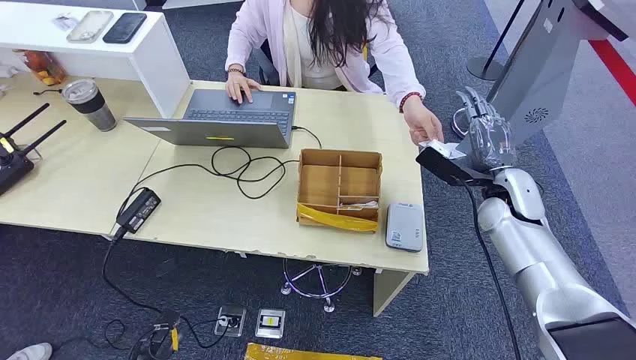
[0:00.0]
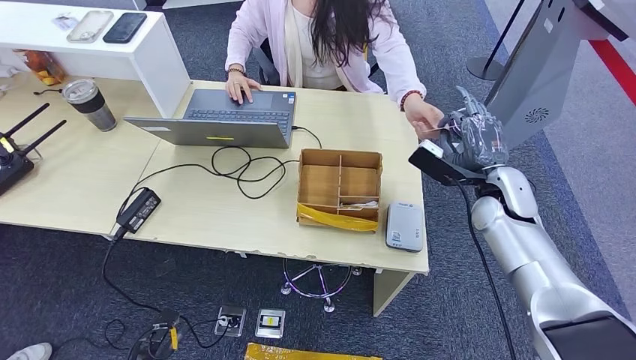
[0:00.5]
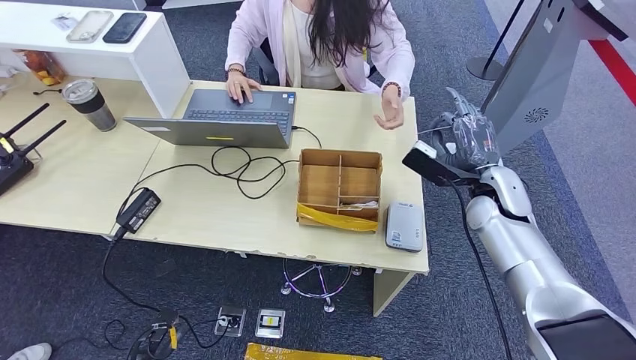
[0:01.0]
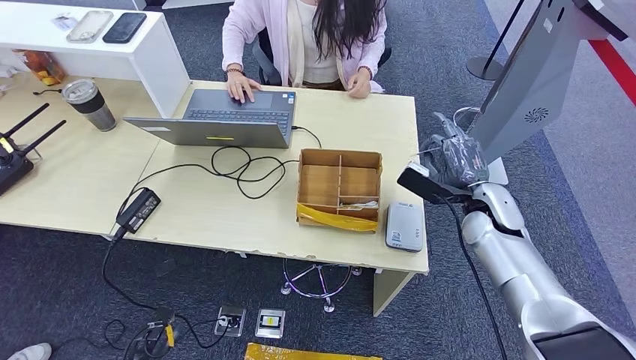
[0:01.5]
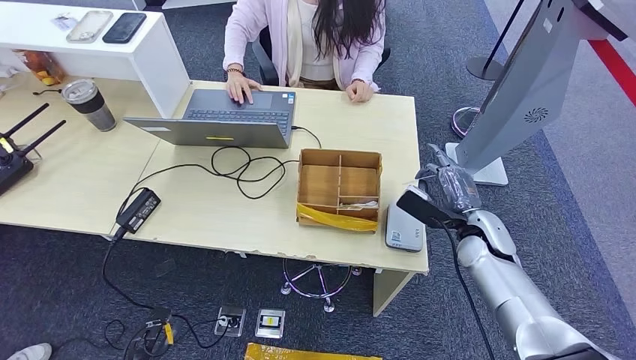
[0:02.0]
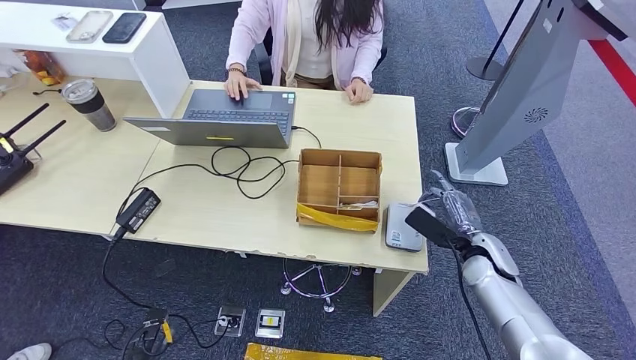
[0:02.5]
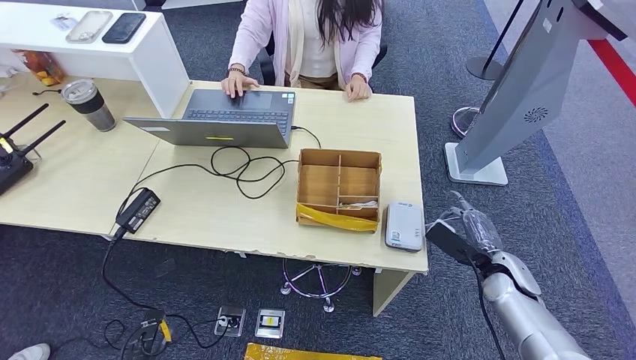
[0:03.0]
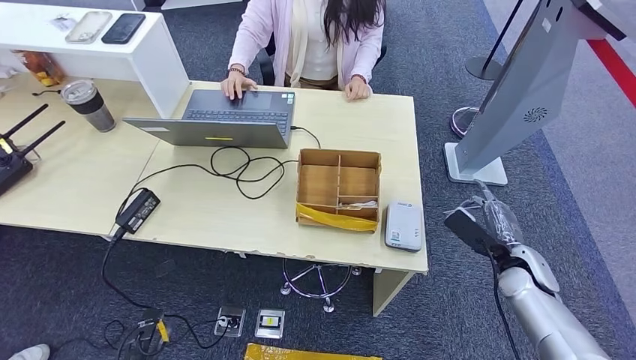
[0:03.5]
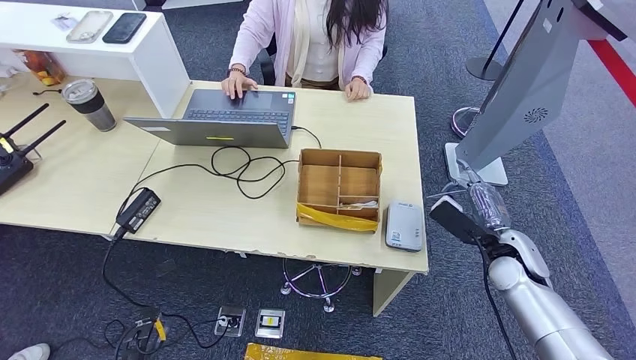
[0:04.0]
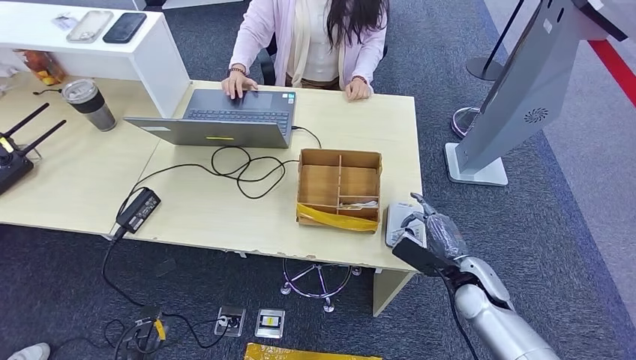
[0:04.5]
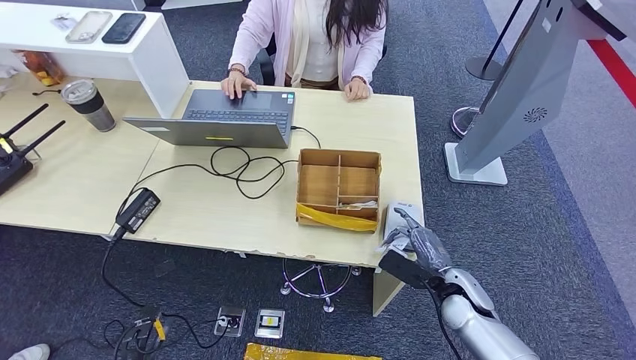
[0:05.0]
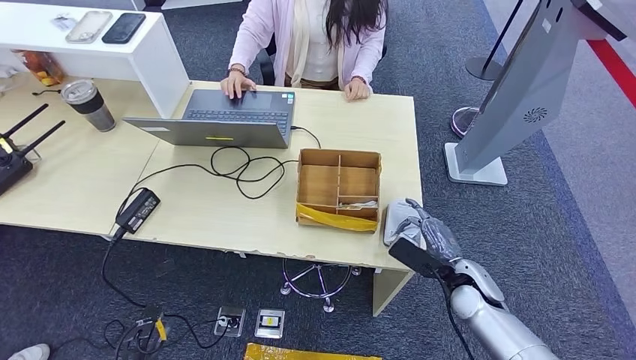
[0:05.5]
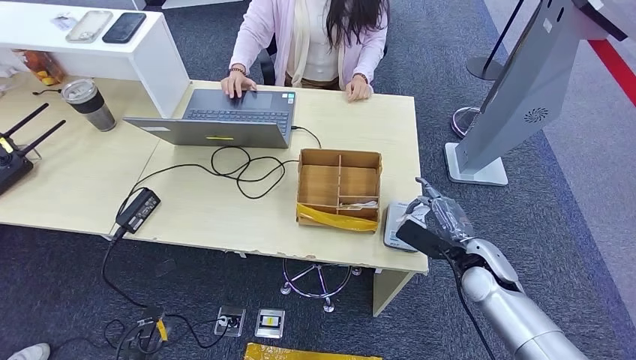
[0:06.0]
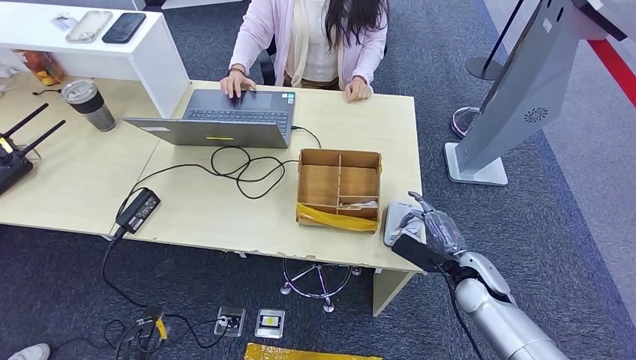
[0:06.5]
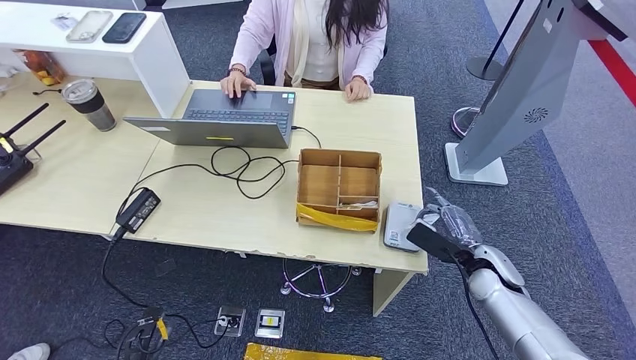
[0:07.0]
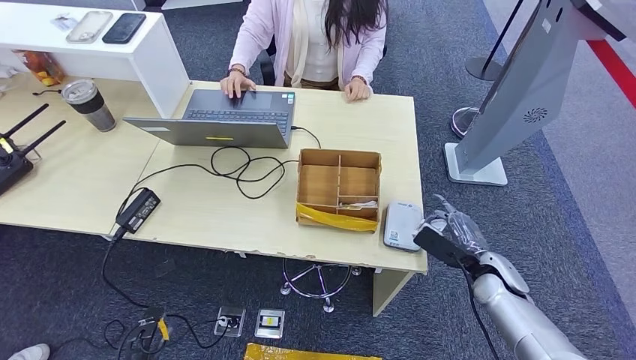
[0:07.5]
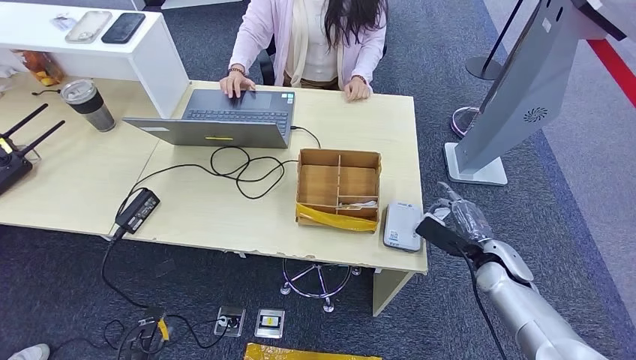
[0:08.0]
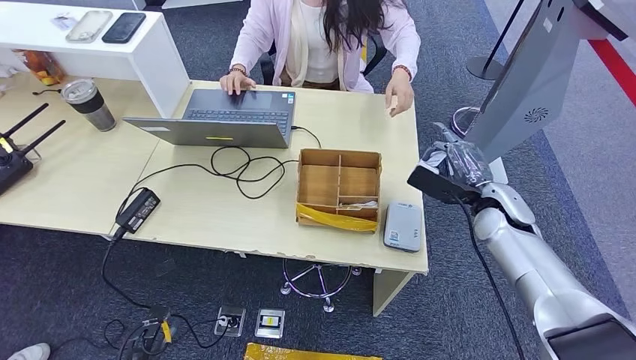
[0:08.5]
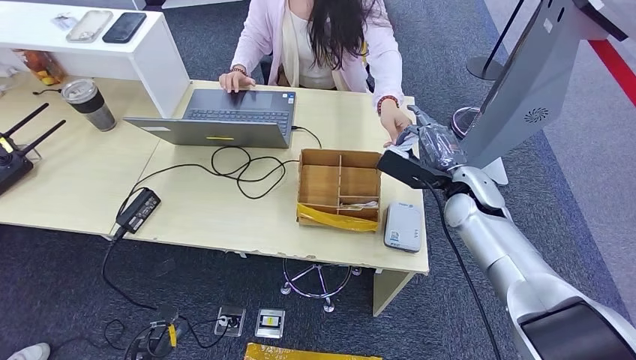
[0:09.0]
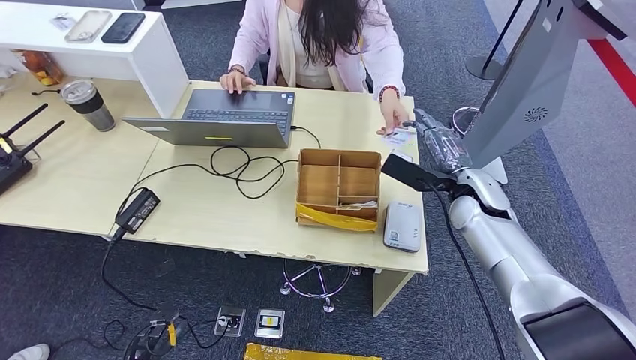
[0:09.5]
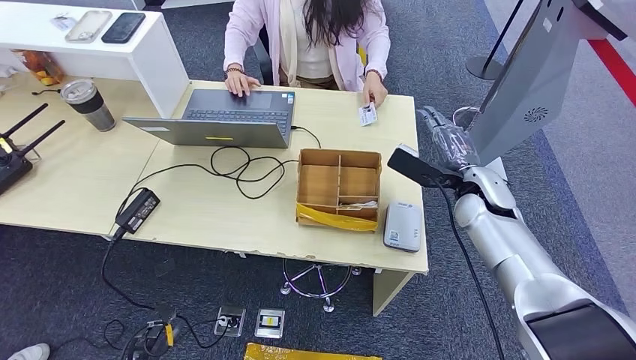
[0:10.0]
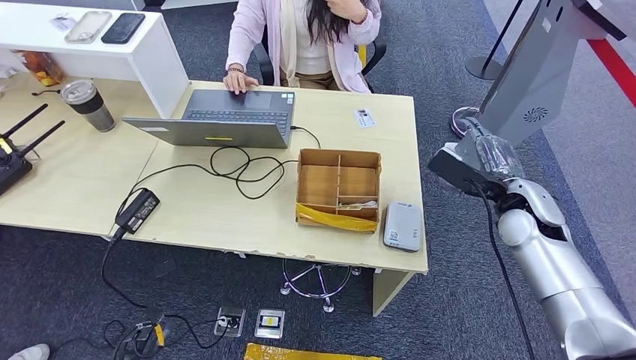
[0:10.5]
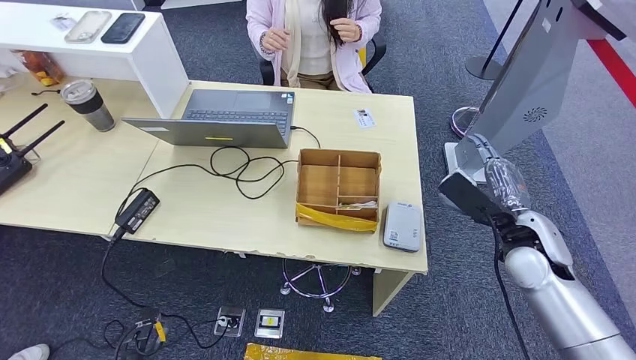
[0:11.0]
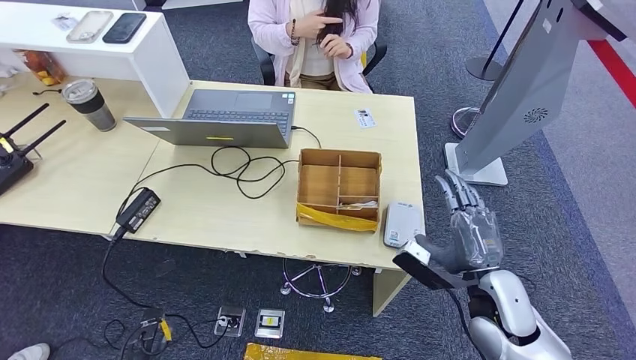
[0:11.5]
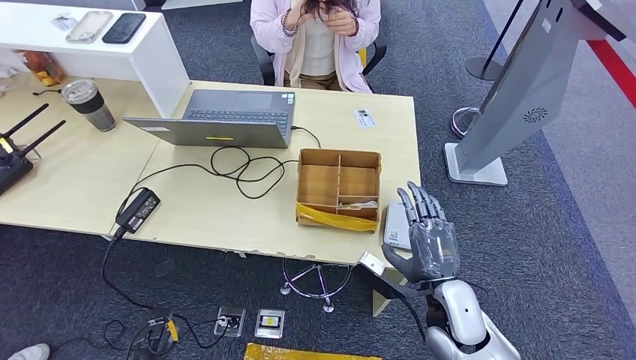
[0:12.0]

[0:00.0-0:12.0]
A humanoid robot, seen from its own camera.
Step, 0:00.0 to 0:01.0: Take the ID card from the person's hand.
Step, 0:01.5 to 0:07.5: Place the ID card on the card reader.
Step, 0:08.5 to 0:09.5: Hand the ID card to the person.
0:02.0 to 0:04.0: The right hand moves to the right, approximately 5 cm.
0:06.0 to 0:08.0: The right hand moves about 5 cm.
0:08.0 to 0:10.0: The right hand moves upward, forward and to the left, roughly 15 cm.
0:10.0 to 0:12.0: The right hand is displaced backward and downward by approximately 20 cm.

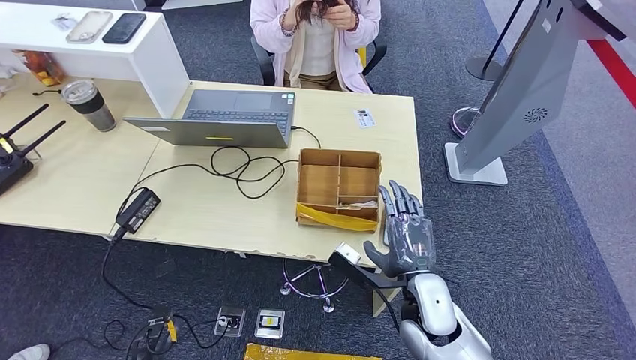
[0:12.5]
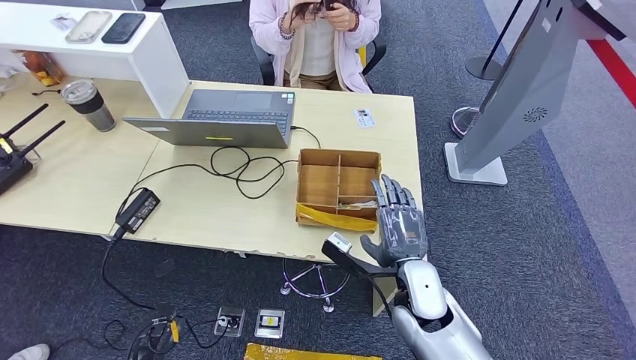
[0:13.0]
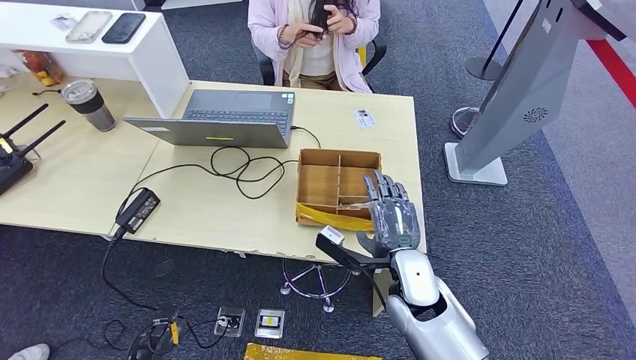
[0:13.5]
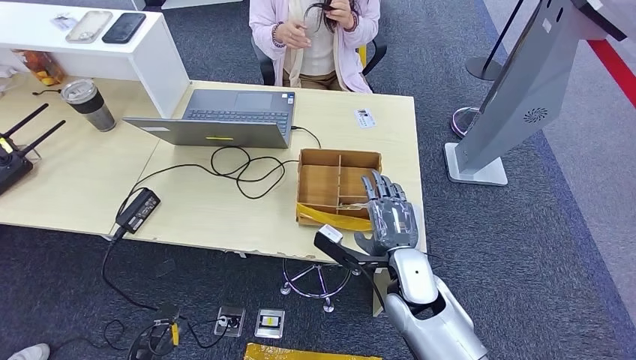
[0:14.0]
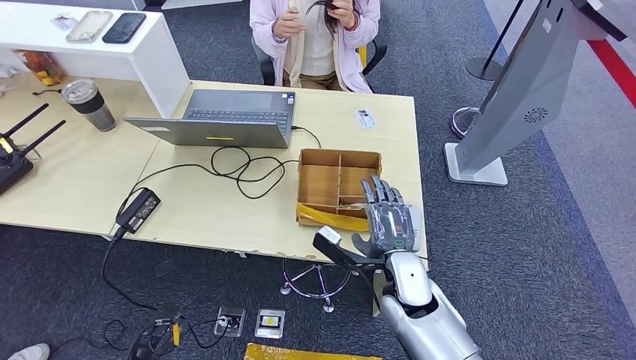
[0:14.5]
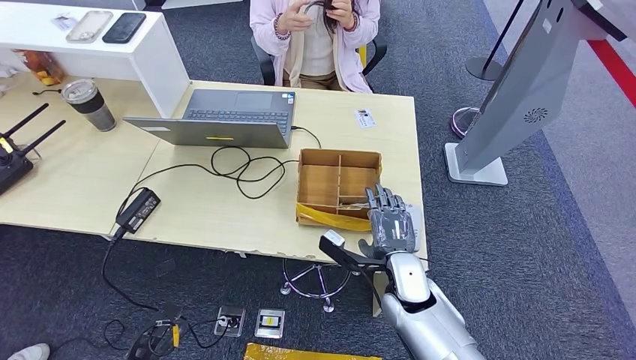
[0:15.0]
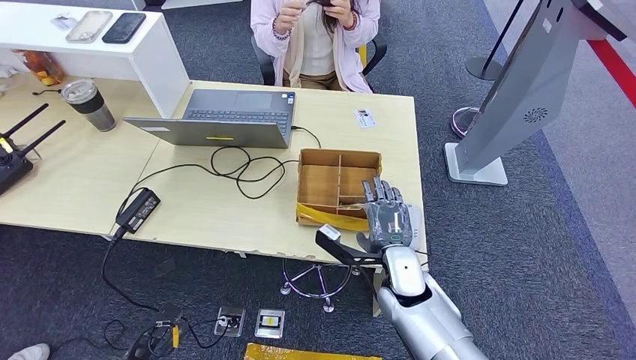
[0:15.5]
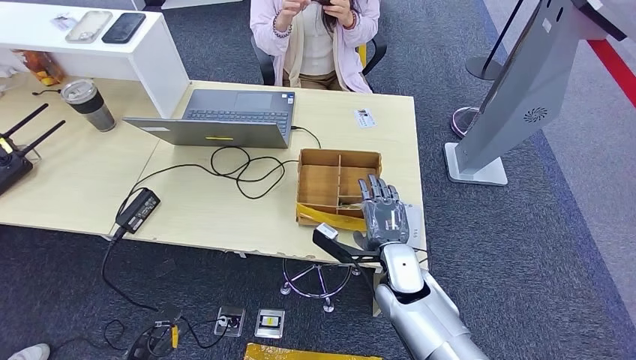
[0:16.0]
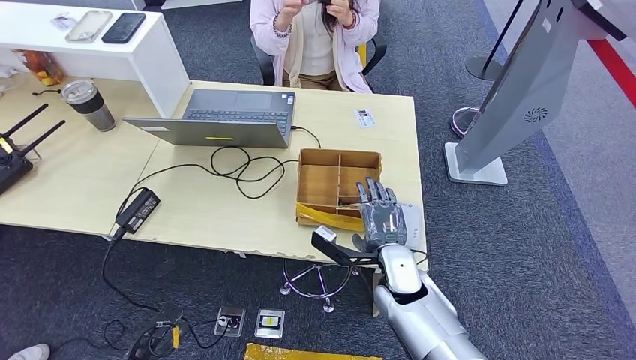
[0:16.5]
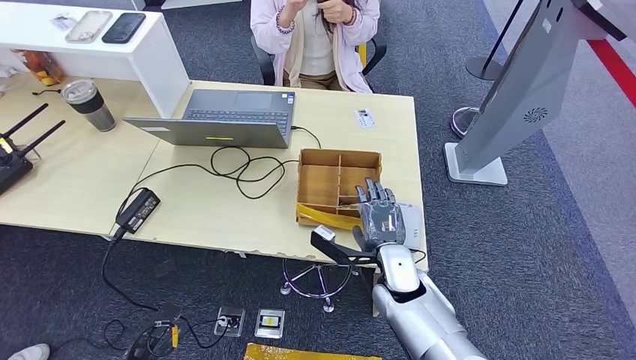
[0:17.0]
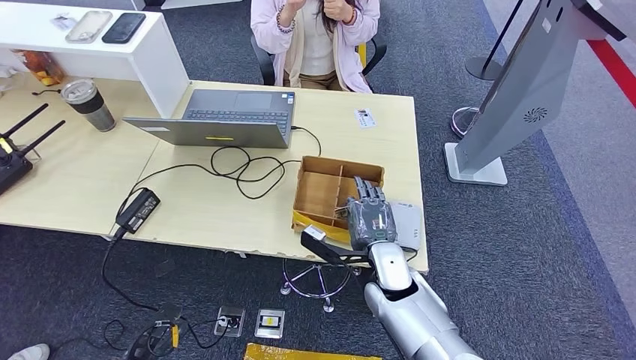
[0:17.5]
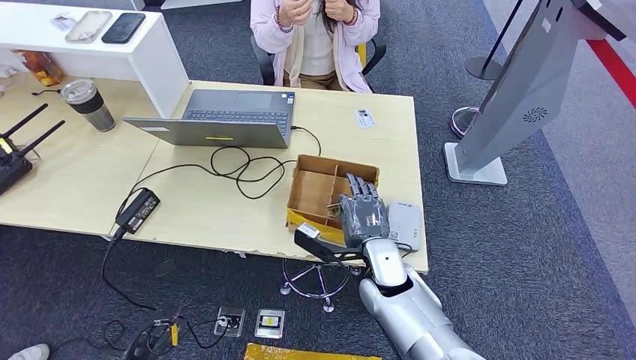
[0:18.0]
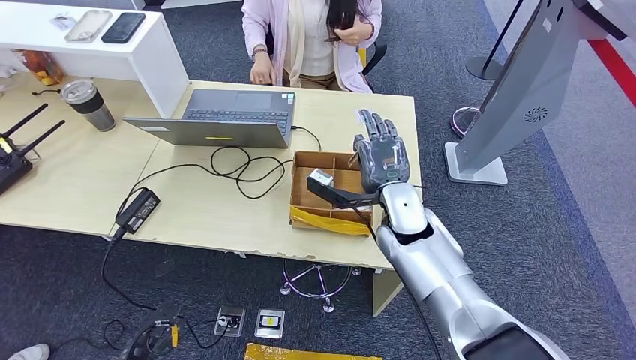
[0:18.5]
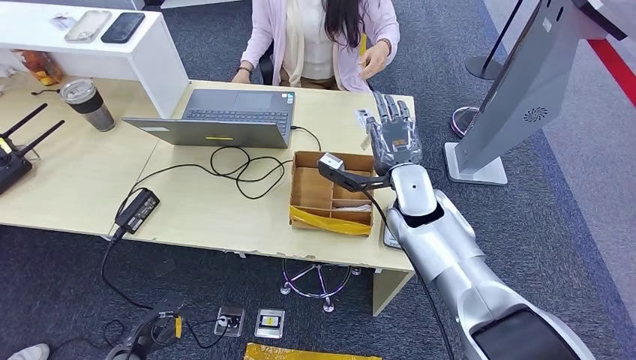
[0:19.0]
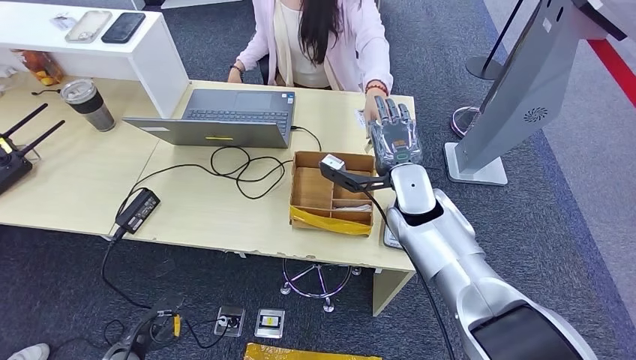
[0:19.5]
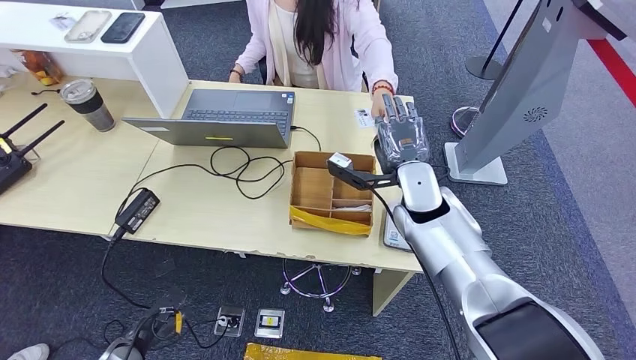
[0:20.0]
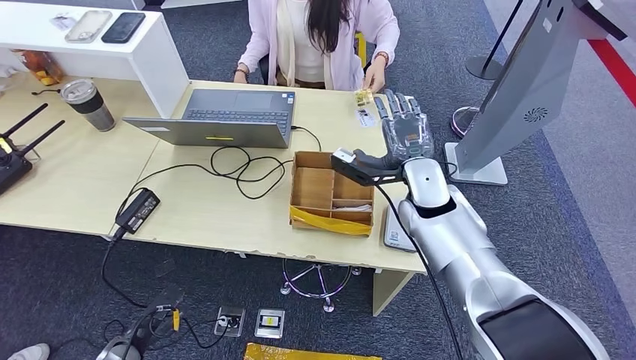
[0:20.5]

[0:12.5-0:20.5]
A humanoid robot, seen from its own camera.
Step, 0:15.0 to 0:18.5: Pick up the room key from the key card box.
Step, 0:19.0 to 0:20.5: Hand the room key to the person.
0:12.5 to 0:14.5: The hands move only a little.
0:14.5 to 0:16.5: The hands move only a little.
0:16.5 to 0:18.5: The right hand heads upward and forward, covering about 10 cm.
0:18.5 to 0:20.5: The right hand ends up some 5 cm from where it was.
